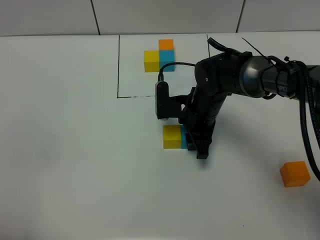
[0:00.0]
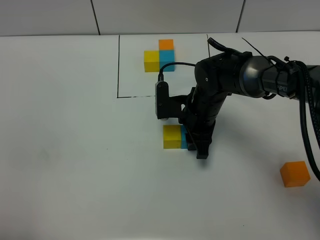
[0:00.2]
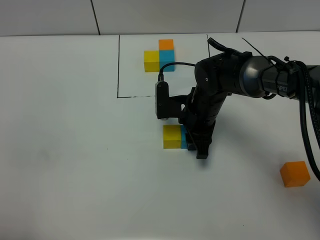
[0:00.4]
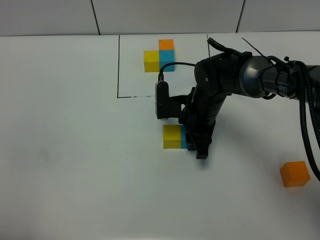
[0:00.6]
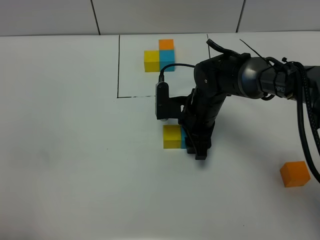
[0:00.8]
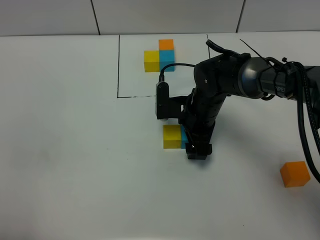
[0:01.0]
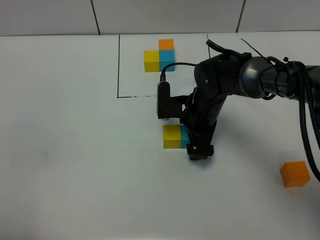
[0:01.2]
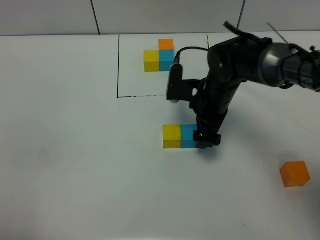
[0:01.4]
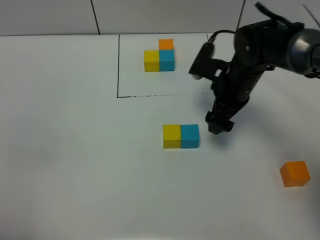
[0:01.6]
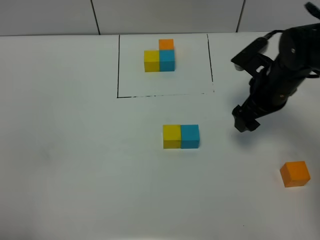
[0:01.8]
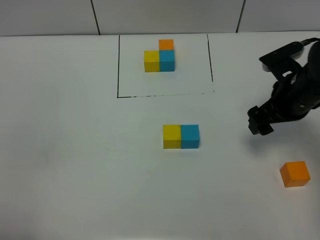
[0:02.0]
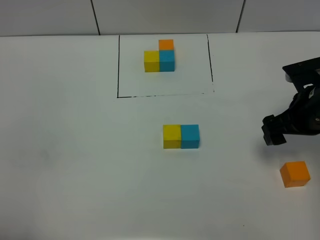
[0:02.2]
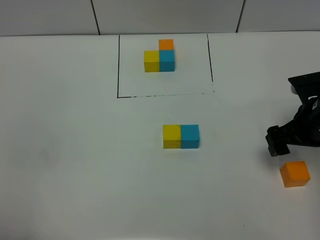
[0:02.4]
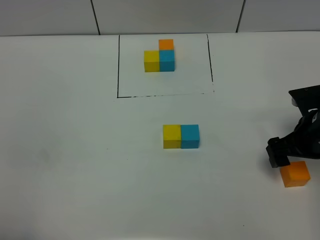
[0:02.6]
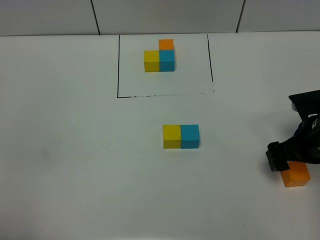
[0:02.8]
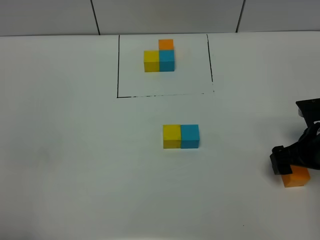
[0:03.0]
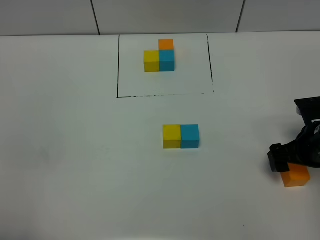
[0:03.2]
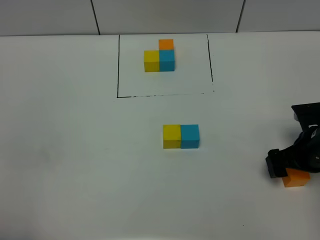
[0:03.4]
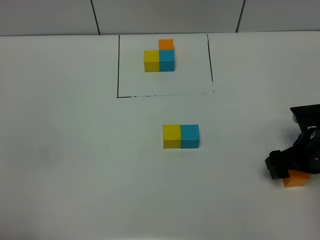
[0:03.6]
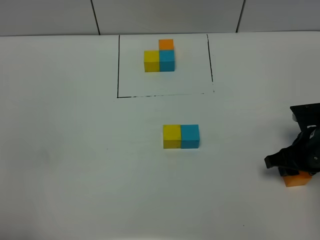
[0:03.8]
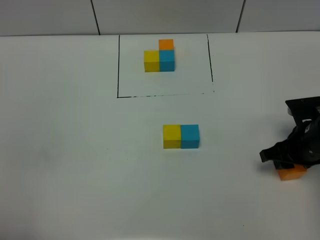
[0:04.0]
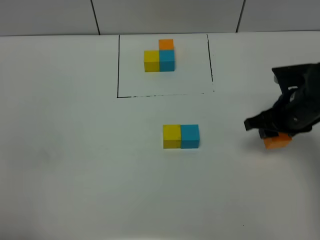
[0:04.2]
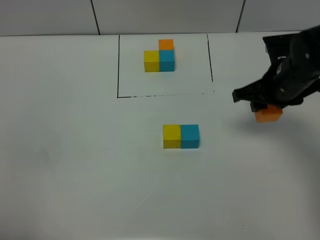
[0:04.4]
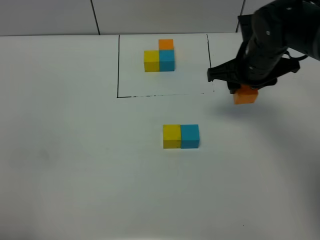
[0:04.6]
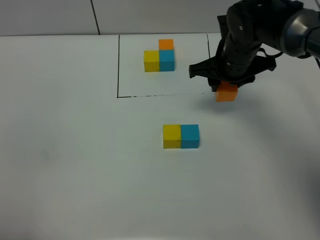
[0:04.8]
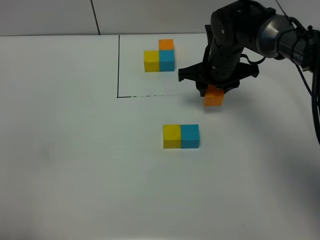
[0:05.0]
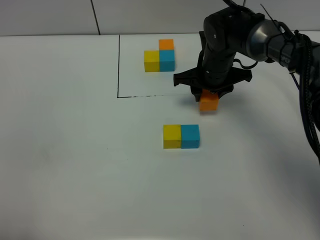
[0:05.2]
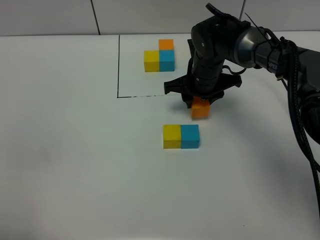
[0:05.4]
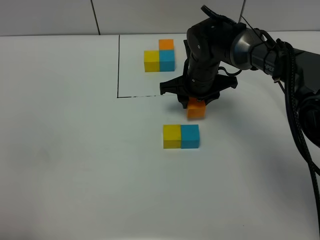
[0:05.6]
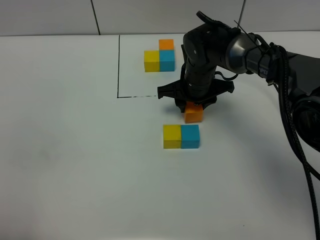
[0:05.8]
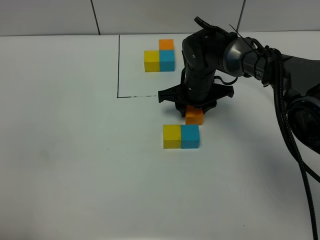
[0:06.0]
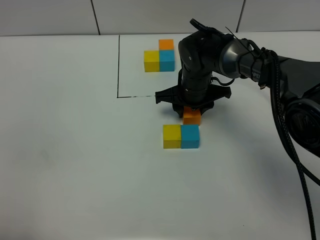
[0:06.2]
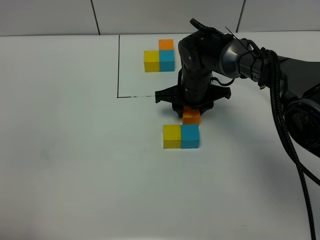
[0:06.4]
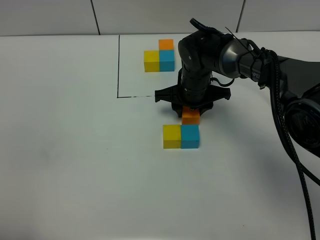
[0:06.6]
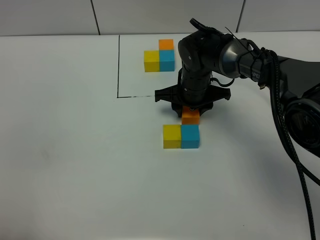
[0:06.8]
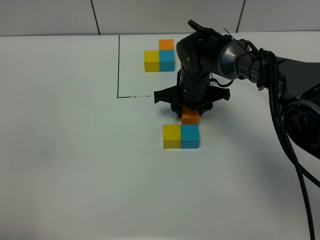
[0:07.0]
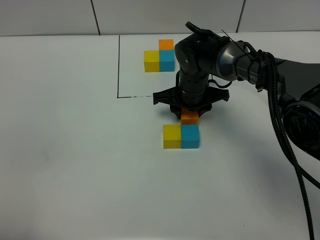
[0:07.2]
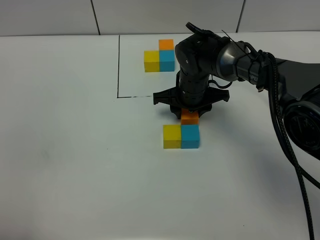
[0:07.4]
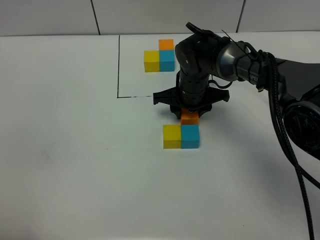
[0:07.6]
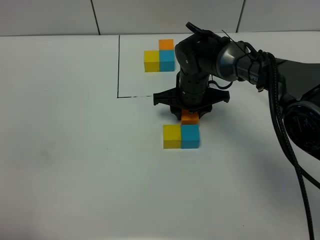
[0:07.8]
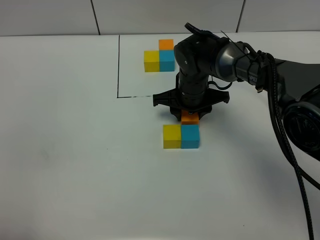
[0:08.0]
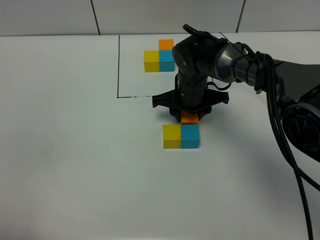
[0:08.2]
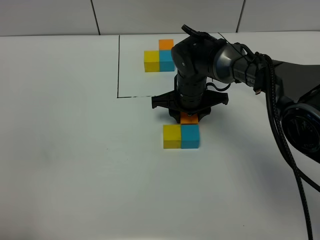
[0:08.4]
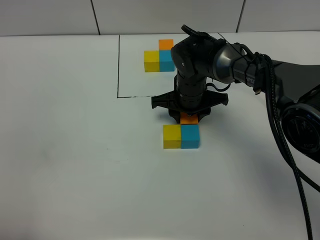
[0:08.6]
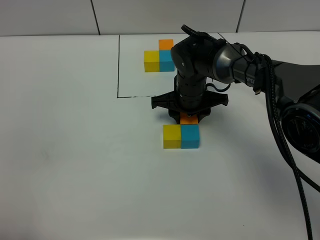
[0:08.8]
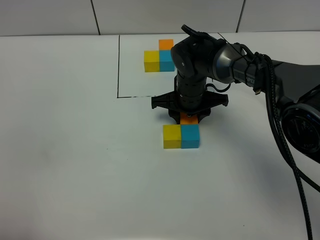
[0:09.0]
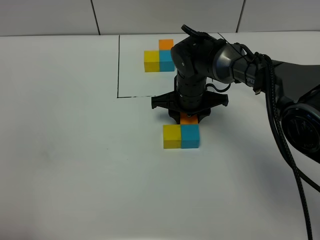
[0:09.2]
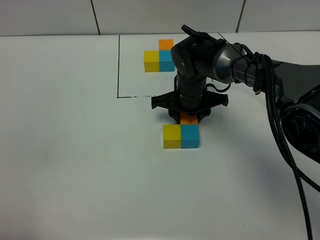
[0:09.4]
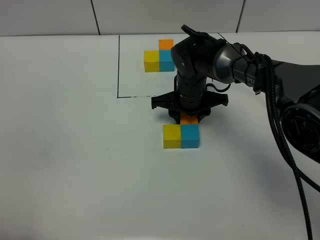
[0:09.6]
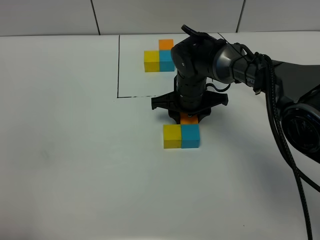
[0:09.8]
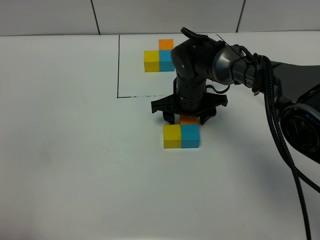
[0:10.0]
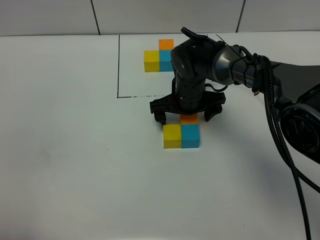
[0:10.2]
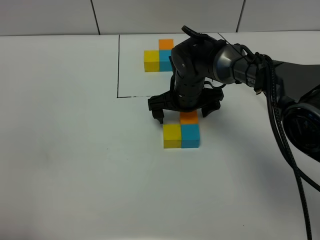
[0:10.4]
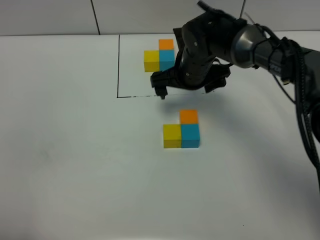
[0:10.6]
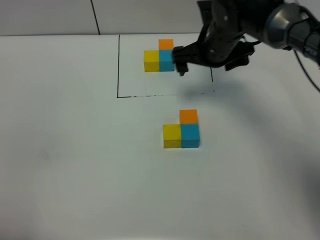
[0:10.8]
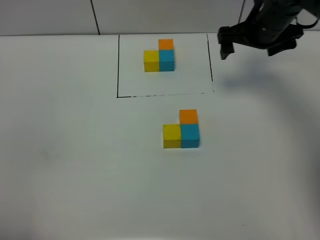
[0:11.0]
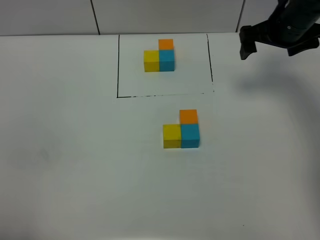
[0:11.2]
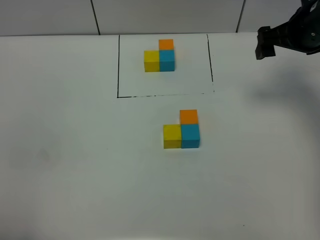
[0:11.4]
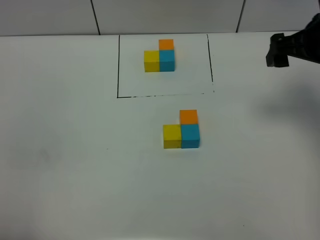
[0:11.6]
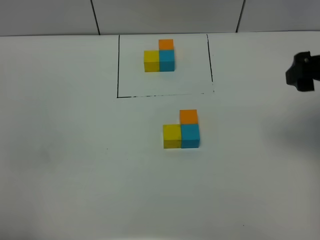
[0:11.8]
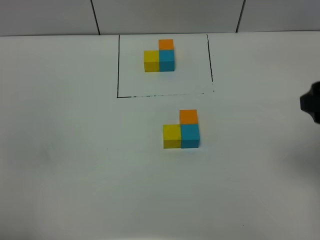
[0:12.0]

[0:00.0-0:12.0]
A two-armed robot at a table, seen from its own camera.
Task of the whole recording: According to the building block template in front, assemble the scattered blocks together.
Step, 0:01.2 to 0:10.0: Put the orange build block on the front of the blue build block.
0:00.0 to 0:01.6: The right gripper goes approximately 10 cm to the right and upward, and opens.
0:01.6 to 0:03.0: The right gripper is displaced backward and to the right by about 15 cm.
0:03.0 to 0:04.4: The right gripper moves forward, upward and to the left, some 15 cm, and closes up.
0:04.4 to 0:06.0: The right gripper travels to the left, downward and forward by roughly 20 cm.
0:06.0 to 0:07.6: There are only small adjustments of the grippers.
0:07.6 to 0:09.0: Both grippers stay put.
0:09.0 to 0:10.4: The right gripper opens up.
0:10.4 to 0:12.0: The right gripper heads backward, to the right and upward, covering approximately 35 cm.

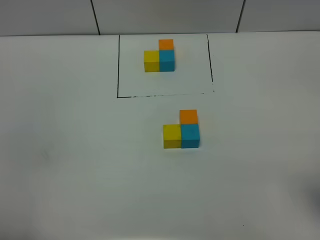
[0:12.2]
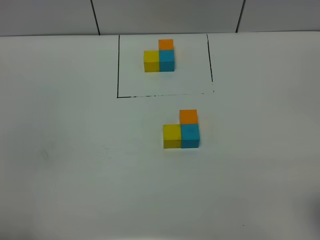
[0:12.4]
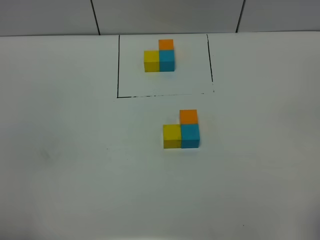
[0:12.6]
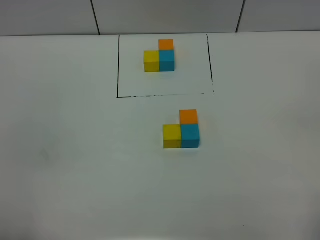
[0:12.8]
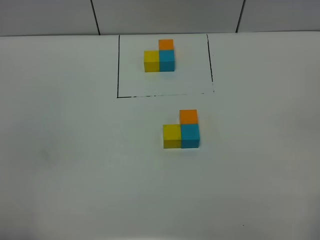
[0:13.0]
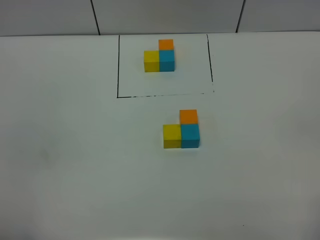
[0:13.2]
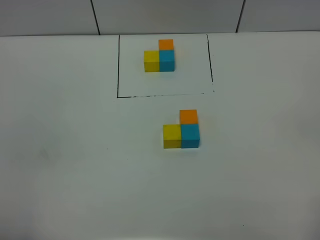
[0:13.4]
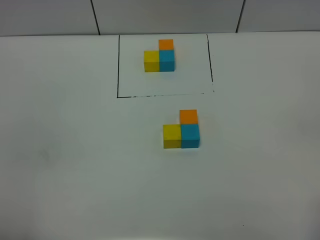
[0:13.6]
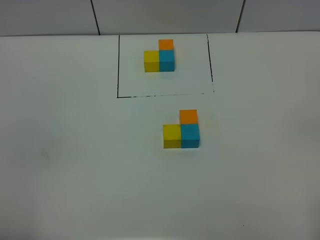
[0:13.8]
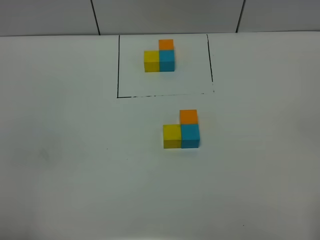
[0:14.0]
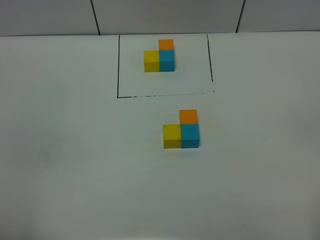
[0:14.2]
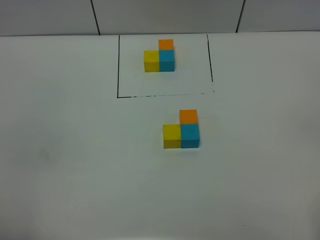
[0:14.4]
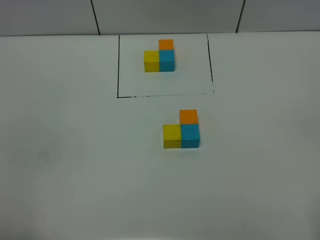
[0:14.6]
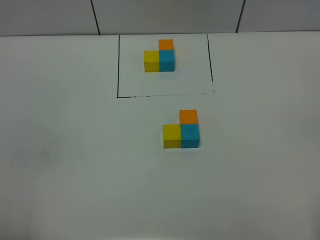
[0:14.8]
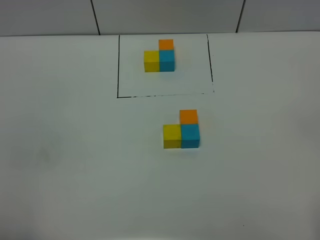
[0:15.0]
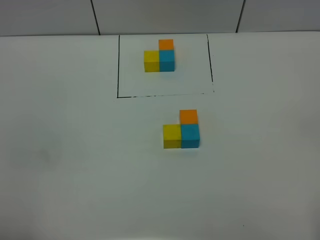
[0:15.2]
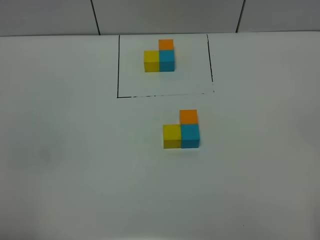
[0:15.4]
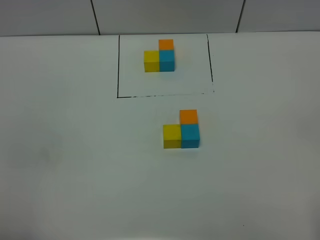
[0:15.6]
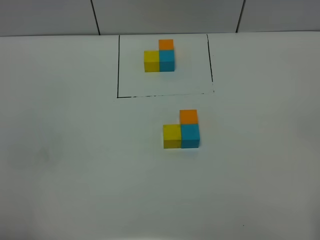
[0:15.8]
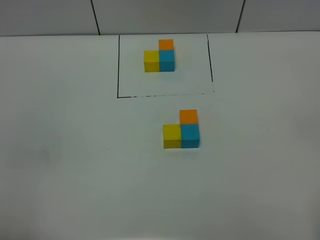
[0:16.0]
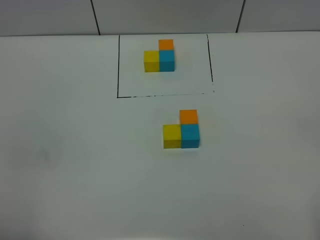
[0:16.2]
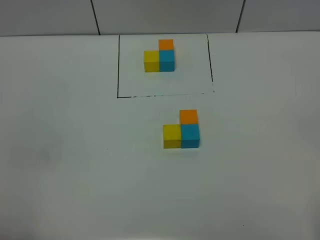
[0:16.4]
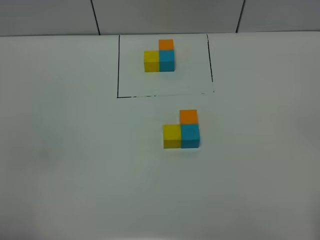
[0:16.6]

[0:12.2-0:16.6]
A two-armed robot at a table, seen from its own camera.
Task of the whole recording: According to the building block template in front, assemble the scattered blocks together.
0:15.2 to 0:16.6: Both grippers stay put.
